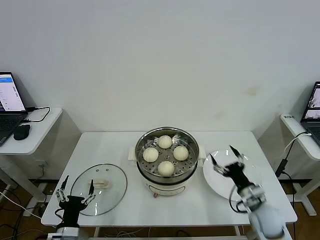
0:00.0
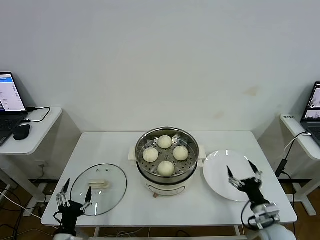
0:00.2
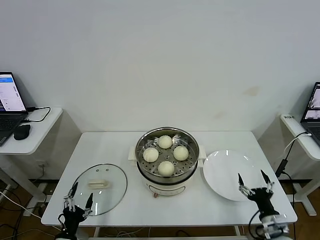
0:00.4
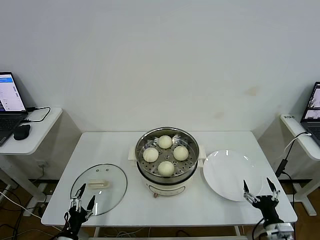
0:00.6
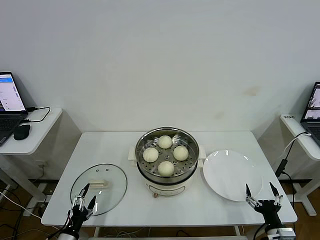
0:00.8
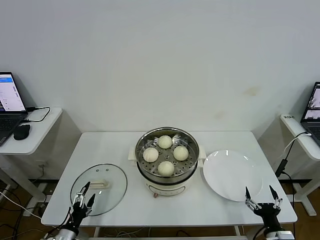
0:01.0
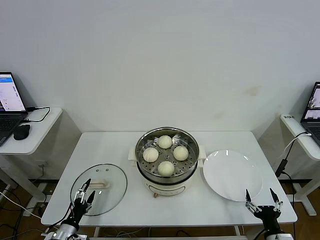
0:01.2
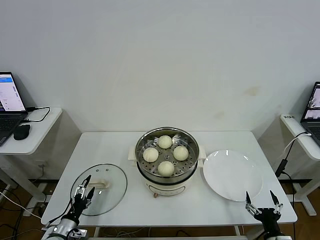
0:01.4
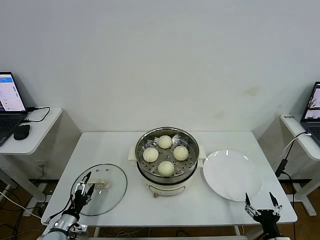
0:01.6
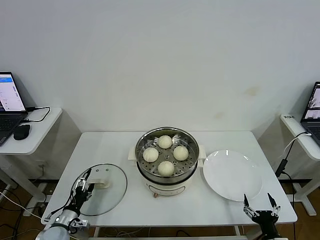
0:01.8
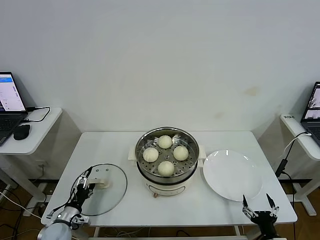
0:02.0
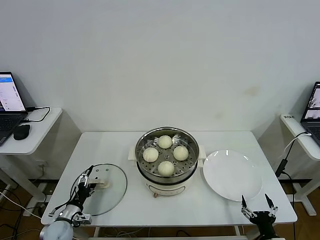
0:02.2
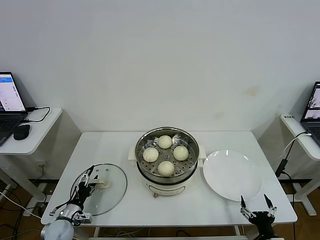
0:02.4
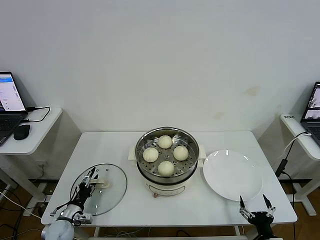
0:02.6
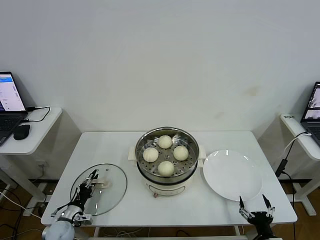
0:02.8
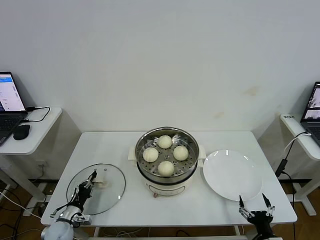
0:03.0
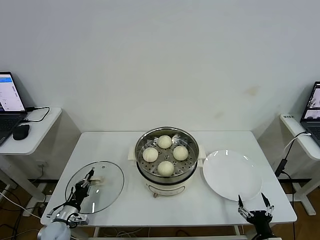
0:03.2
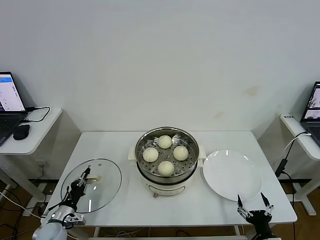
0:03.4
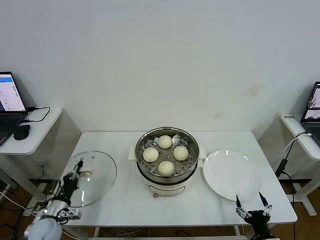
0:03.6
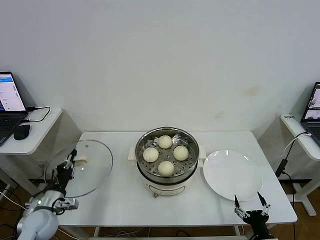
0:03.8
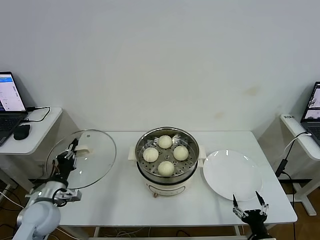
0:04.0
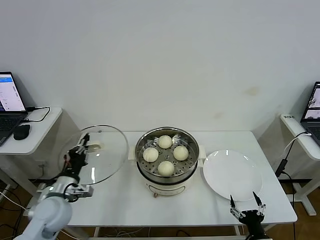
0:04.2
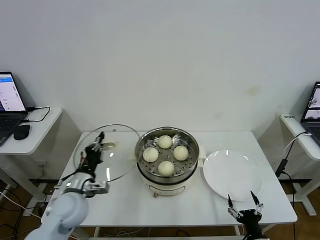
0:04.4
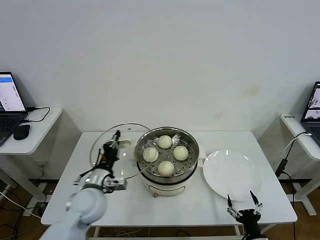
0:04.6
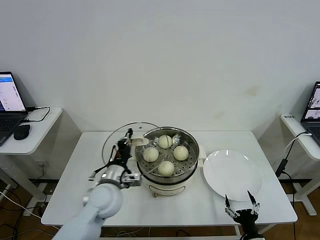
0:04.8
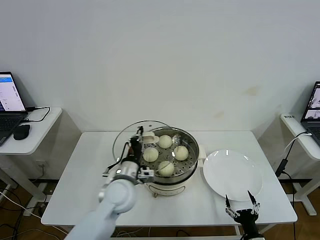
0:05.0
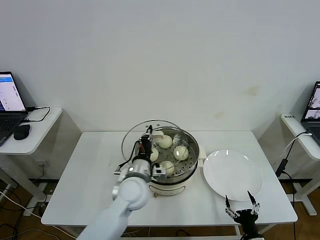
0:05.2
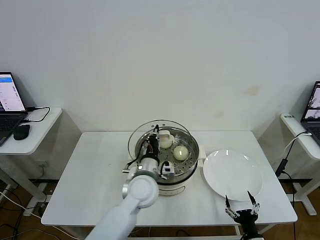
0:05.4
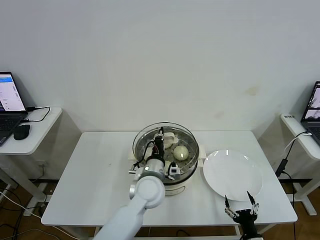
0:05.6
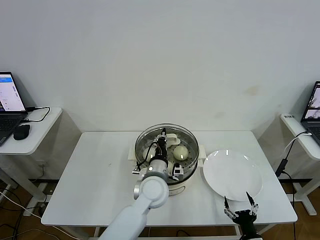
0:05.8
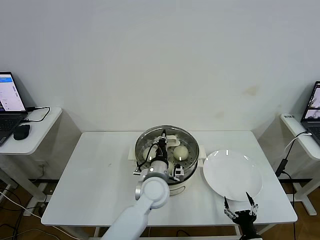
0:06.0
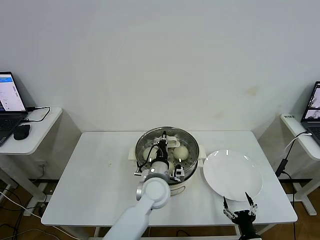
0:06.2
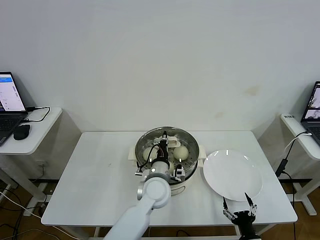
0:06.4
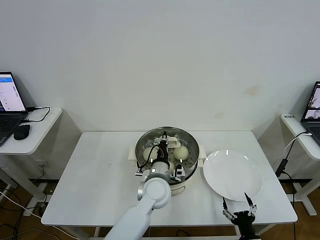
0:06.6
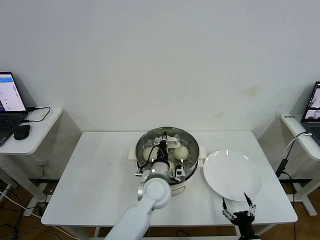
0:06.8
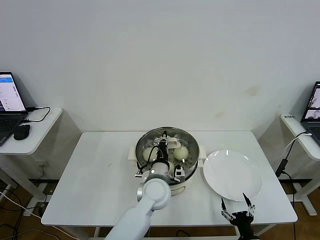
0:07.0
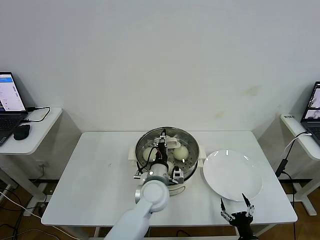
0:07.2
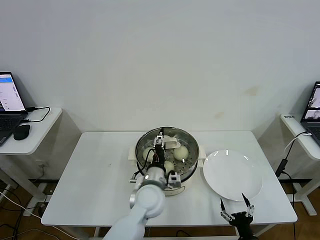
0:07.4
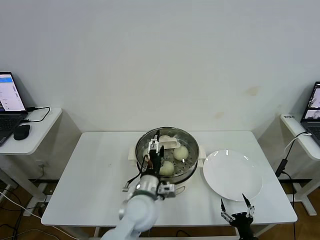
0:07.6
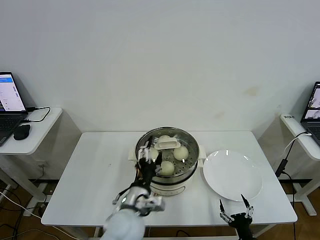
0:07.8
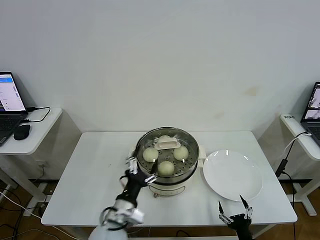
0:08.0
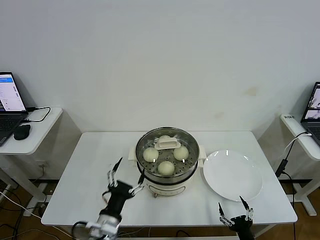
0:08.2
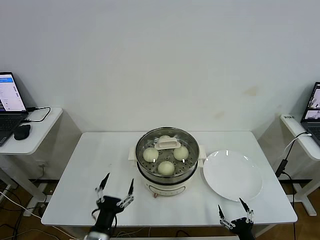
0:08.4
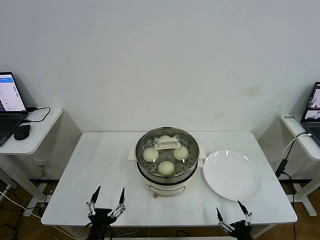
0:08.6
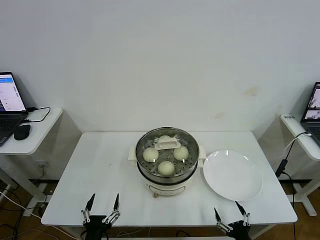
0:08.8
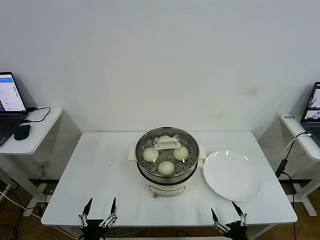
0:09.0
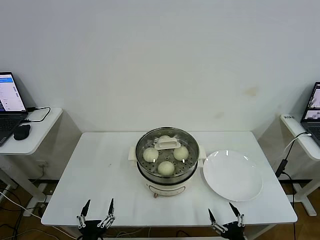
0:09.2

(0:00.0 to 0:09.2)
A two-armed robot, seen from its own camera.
Step, 0:00.0 - 0:03.2: Grasp the pot lid with left gripper.
Step, 0:03.4 - 0:07.6: Place the pot lid on the steamer with left gripper.
0:00.0 - 0:01.6: The left gripper moves downward, to the left and forward, about 15 cm, while the right gripper heads backward and downward, covering approximately 15 cm.
0:01.6 - 0:03.0: The left gripper ends up approximately 5 cm from where it was, and closes.
0:03.0 - 0:04.6: The left gripper goes roughly 25 cm upward and to the right.
0:04.6 - 0:06.2: The left gripper heads to the right, covering approximately 20 cm.
0:06.2 - 0:07.6: The left gripper is displaced backward by about 5 cm, and opens its fingers.
0:07.6 - 0:09.2: The right gripper moves some 5 cm, while the left gripper shifts approximately 30 cm backward, to the left and downward.

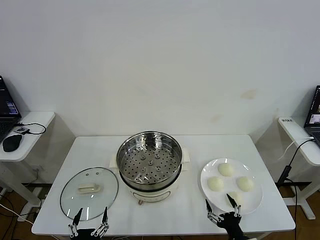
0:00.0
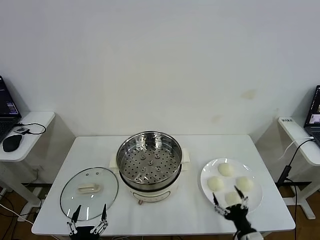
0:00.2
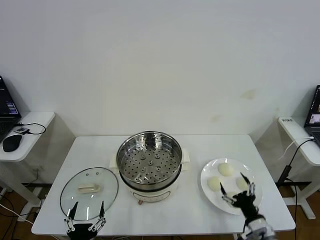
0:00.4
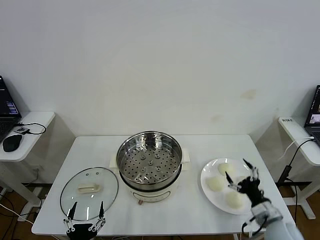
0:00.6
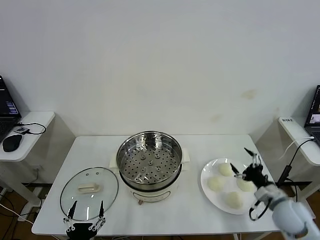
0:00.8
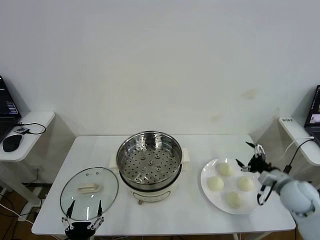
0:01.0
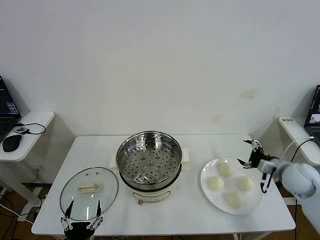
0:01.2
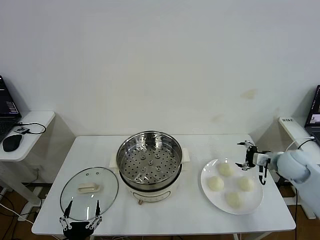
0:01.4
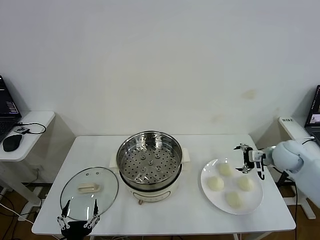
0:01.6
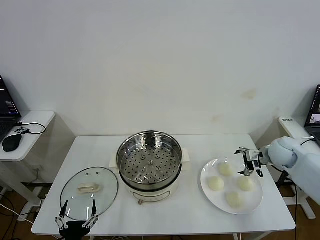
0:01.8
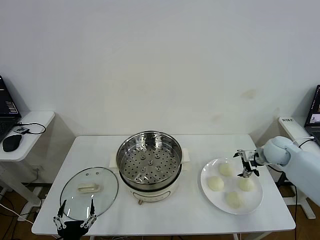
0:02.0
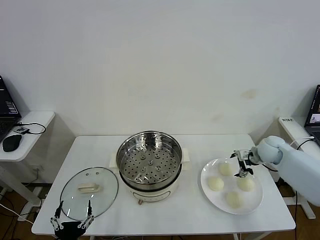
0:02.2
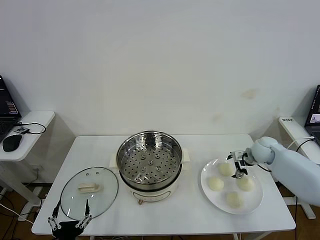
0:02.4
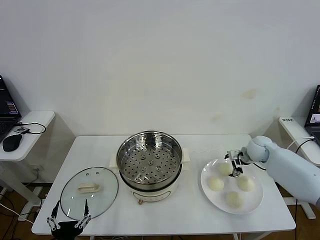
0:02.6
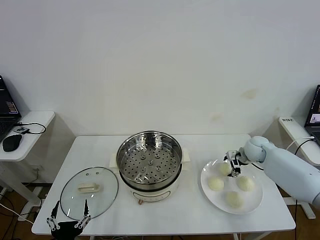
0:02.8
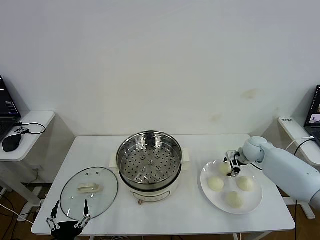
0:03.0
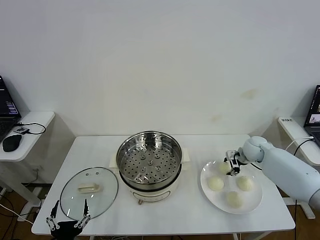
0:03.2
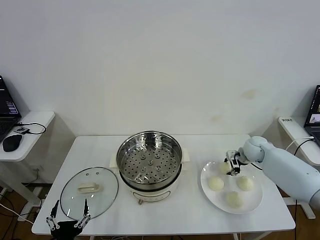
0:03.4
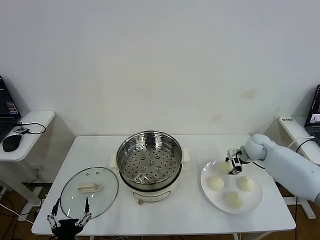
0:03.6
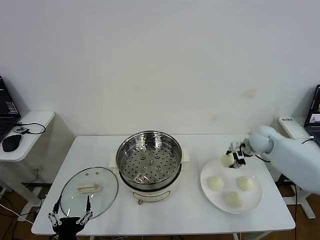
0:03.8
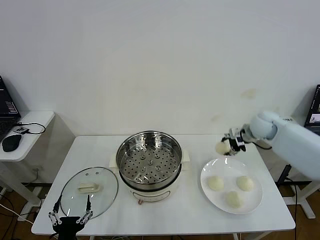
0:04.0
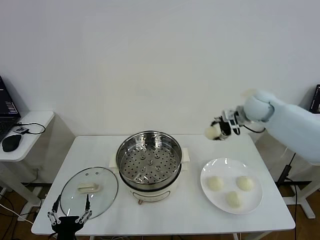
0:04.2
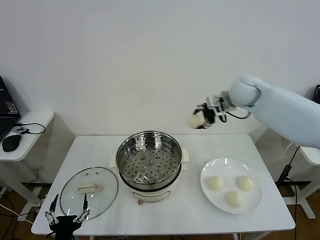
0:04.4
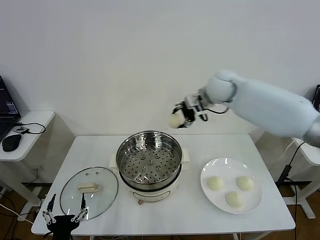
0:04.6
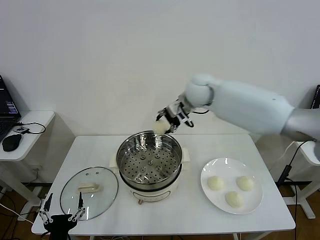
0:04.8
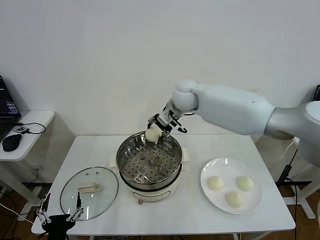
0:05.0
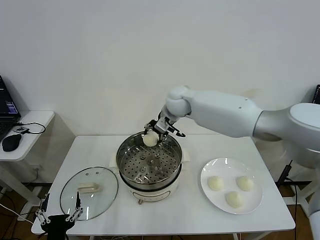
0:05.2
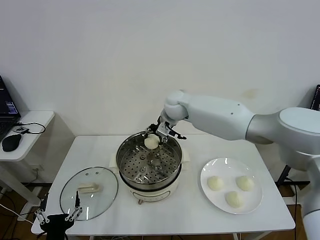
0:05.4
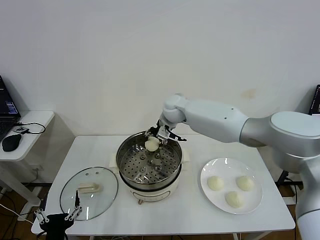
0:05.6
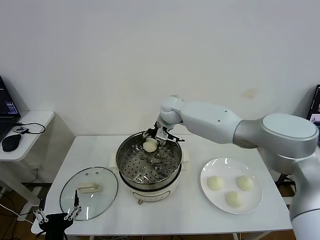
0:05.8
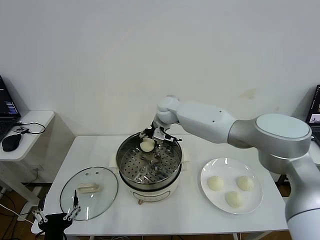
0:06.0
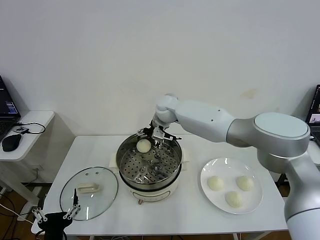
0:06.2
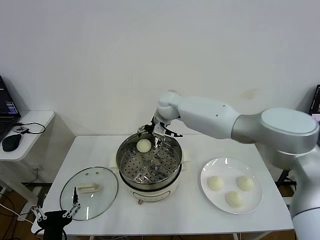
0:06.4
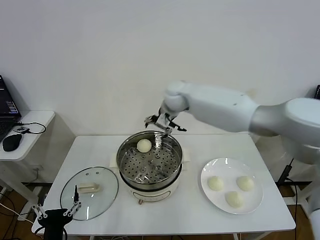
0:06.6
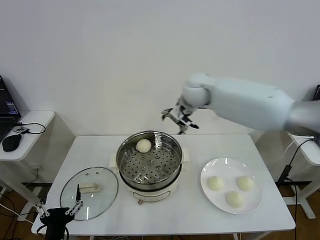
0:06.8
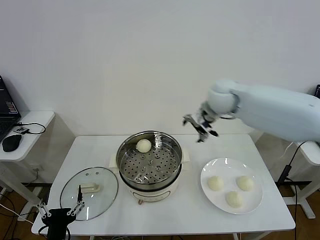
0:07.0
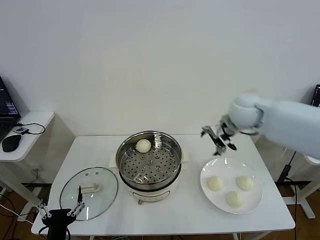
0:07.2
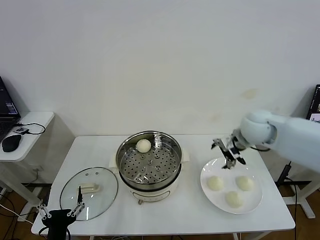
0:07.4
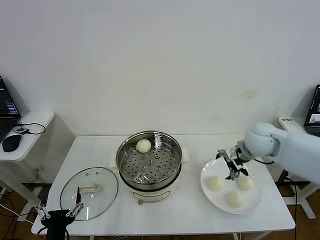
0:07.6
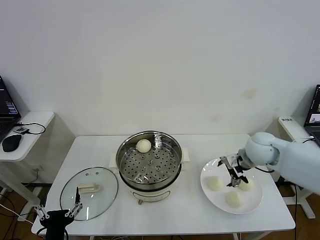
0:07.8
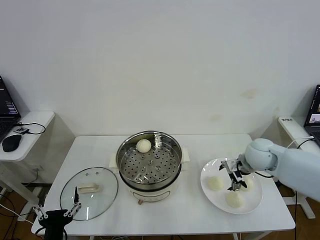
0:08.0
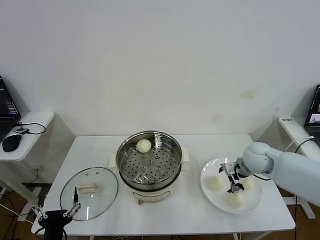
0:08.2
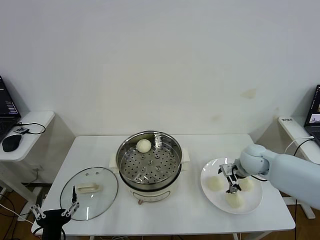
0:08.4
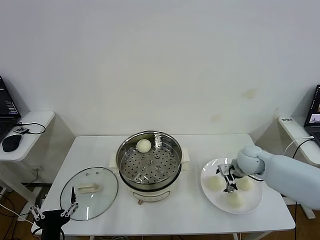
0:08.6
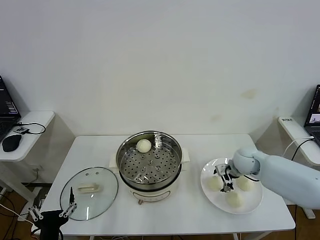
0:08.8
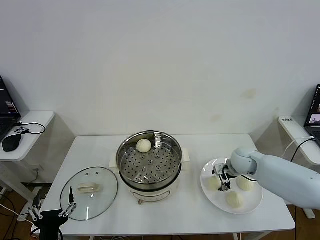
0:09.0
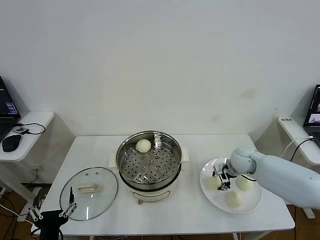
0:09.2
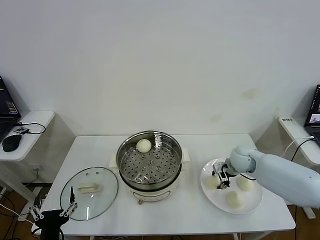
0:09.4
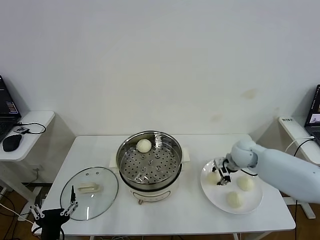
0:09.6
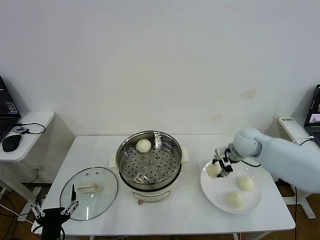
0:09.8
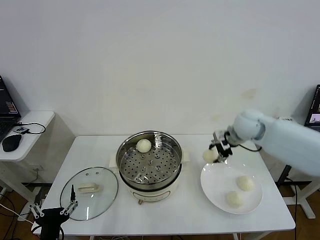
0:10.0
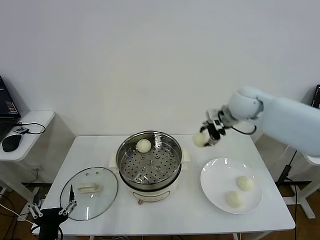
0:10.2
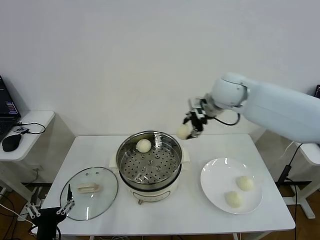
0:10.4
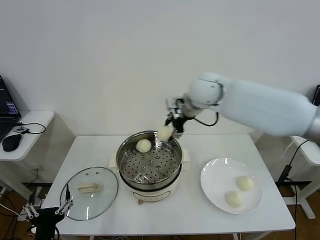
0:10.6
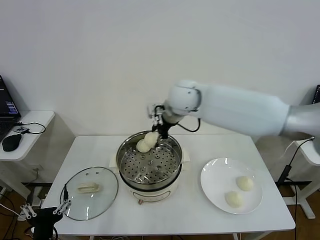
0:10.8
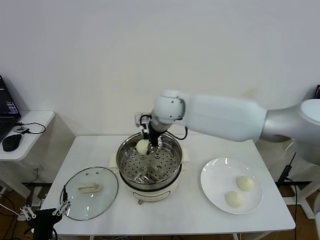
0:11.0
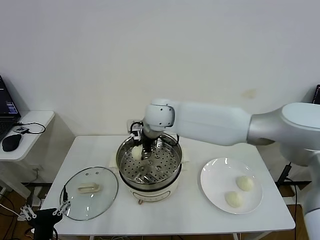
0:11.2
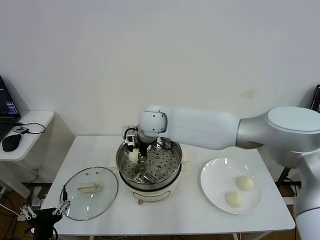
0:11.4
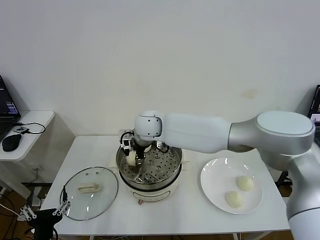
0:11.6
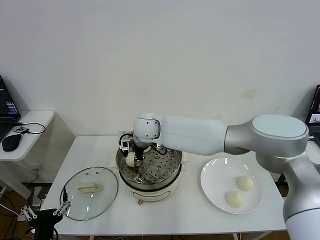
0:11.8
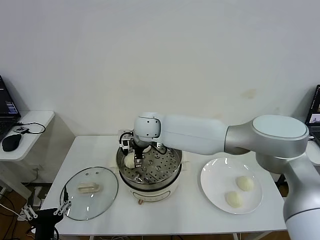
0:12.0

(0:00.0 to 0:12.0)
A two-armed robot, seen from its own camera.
Step, 0:00.0 - 0:03.2: Grasp the baozi in the plate with right gripper.
Step, 0:03.6 - 0:06.2: Place the baozi on the steamer with right gripper.
Step, 0:06.4 - 0:09.2: Grasp the baozi in the plate with right gripper.
Step, 0:09.4 - 0:11.8: Place the baozi on the steamer with right gripper.
0:01.6 - 0:03.0: The right gripper goes approximately 10 cm forward and downward, and closes up.
0:03.0 - 0:04.4: The right gripper travels upward and to the left by roughly 25 cm.
0:04.4 - 0:06.0: The right gripper travels to the left and downward by approximately 25 cm.
0:06.0 - 0:07.6: The right gripper heads to the right and backward, covering about 30 cm, and opens.
0:07.6 - 0:09.0: The right gripper shifts about 15 cm downward, and closes.
0:09.0 - 0:10.4: The right gripper goes some 30 cm upward and to the left.
0:10.4 - 0:12.0: The right gripper travels to the left and downward by roughly 25 cm, and opens its fingers.

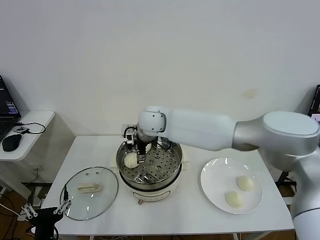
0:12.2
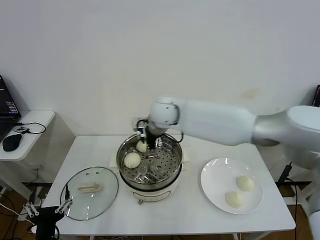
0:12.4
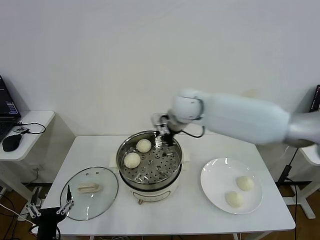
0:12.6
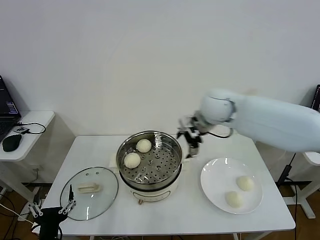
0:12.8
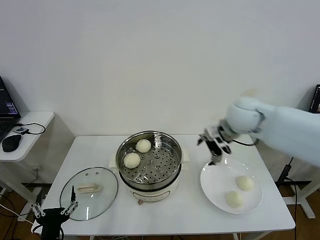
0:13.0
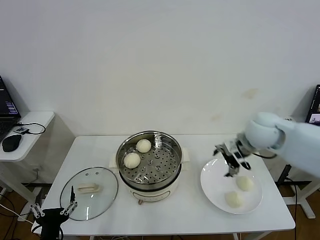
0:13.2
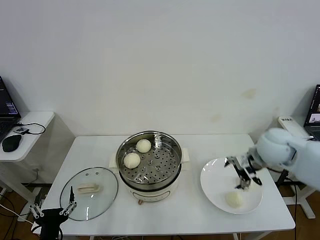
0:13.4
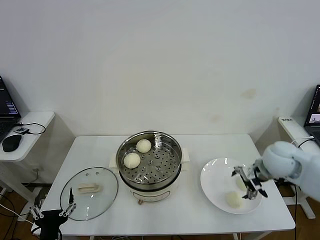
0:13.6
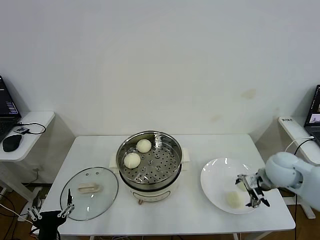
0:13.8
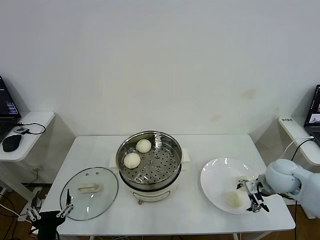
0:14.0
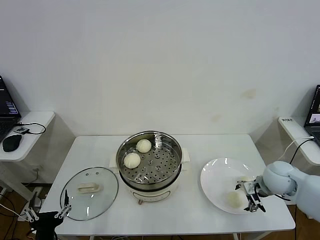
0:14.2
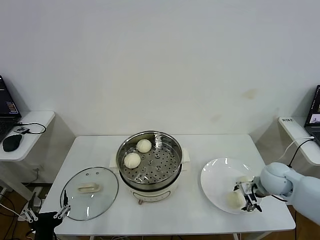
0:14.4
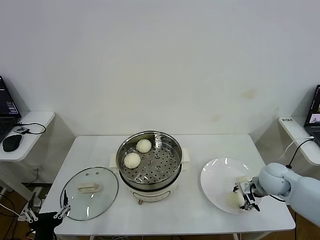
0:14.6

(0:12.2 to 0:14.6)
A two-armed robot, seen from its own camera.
0:12.2 - 0:13.4: The right gripper heads to the right, covering approximately 35 cm.
0:13.4 - 0:14.6: The right gripper travels downward by roughly 15 cm, and closes up.
